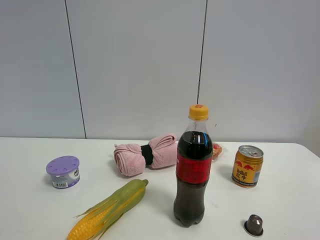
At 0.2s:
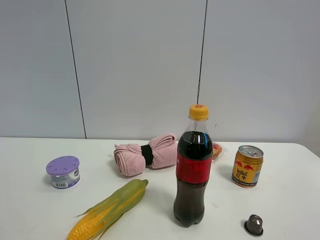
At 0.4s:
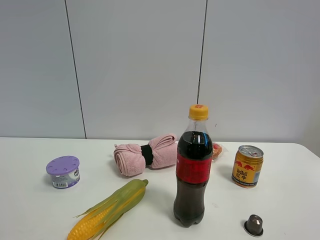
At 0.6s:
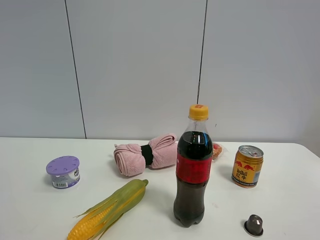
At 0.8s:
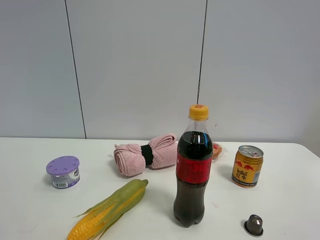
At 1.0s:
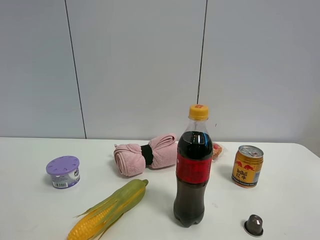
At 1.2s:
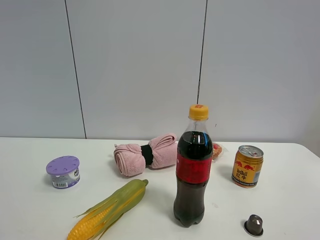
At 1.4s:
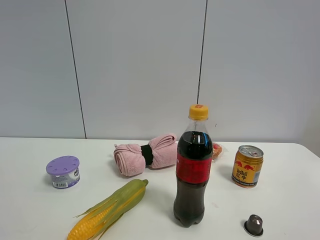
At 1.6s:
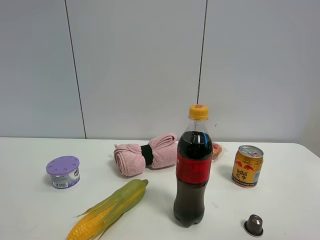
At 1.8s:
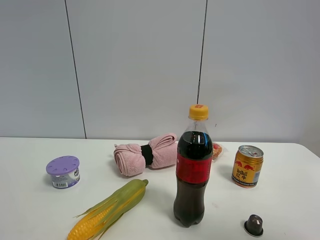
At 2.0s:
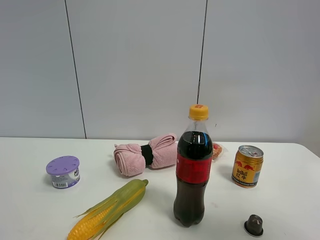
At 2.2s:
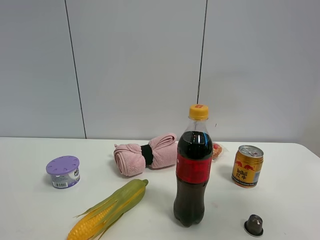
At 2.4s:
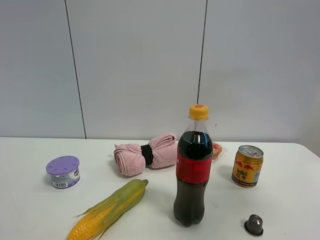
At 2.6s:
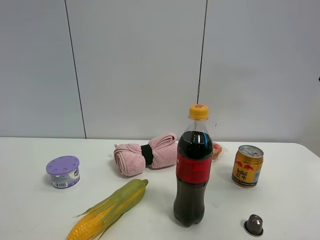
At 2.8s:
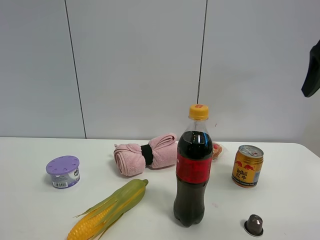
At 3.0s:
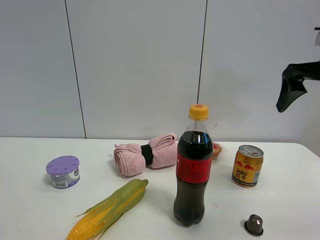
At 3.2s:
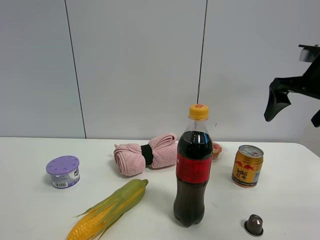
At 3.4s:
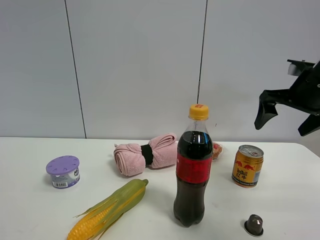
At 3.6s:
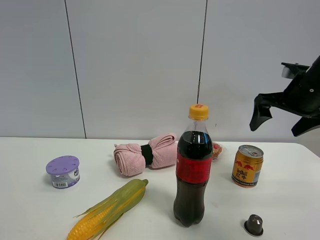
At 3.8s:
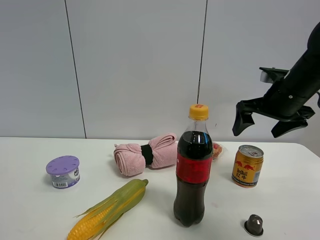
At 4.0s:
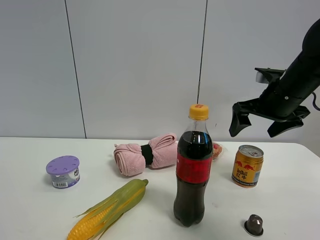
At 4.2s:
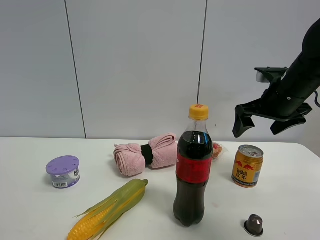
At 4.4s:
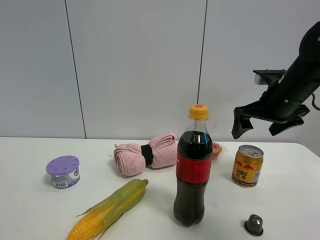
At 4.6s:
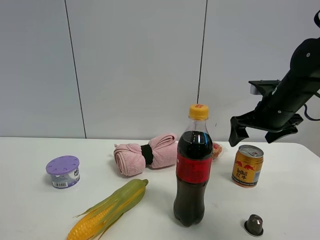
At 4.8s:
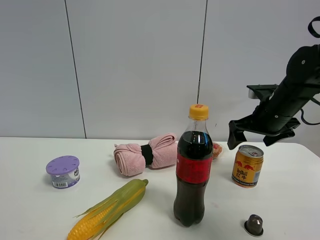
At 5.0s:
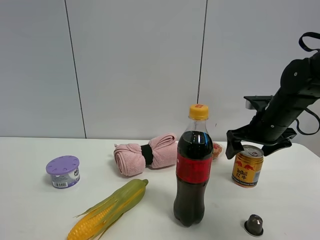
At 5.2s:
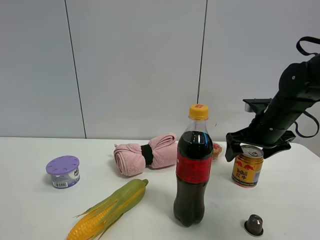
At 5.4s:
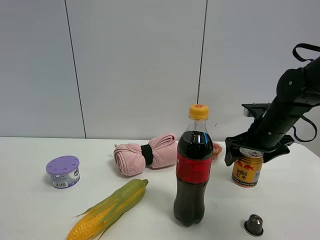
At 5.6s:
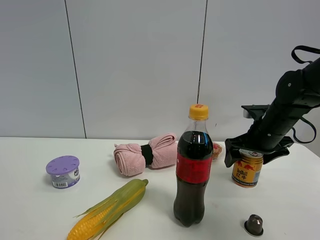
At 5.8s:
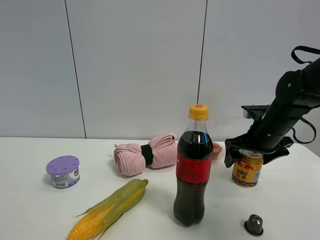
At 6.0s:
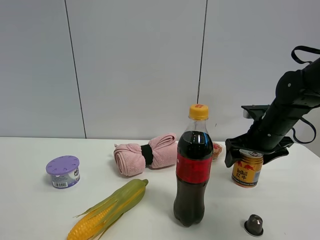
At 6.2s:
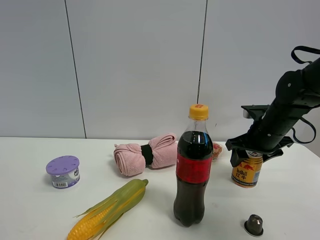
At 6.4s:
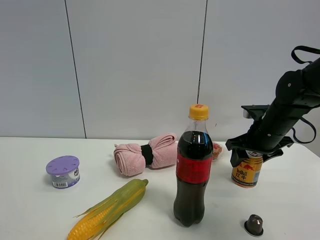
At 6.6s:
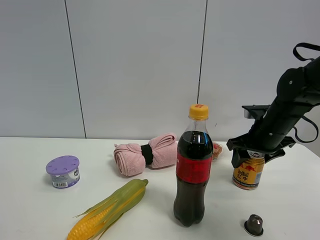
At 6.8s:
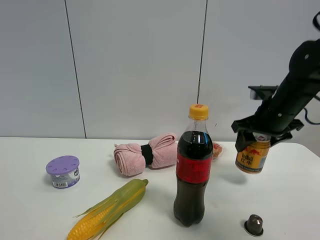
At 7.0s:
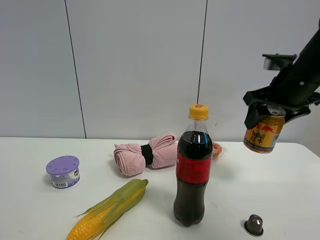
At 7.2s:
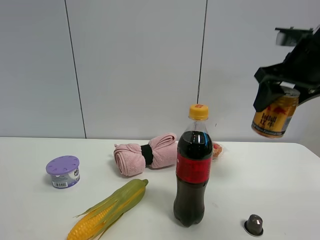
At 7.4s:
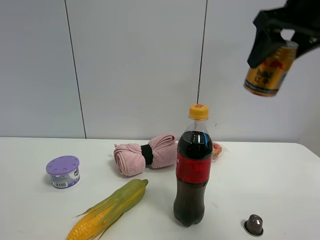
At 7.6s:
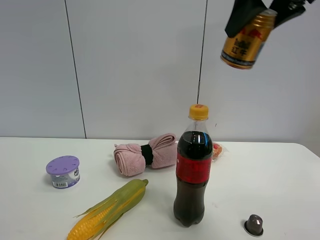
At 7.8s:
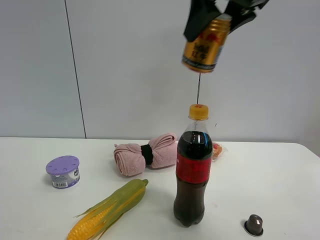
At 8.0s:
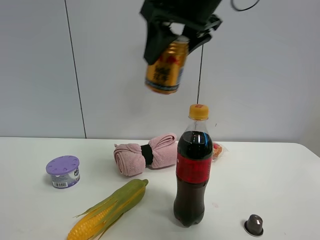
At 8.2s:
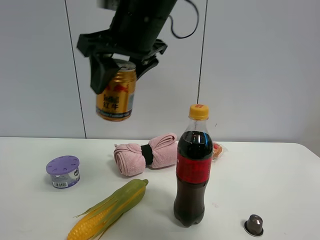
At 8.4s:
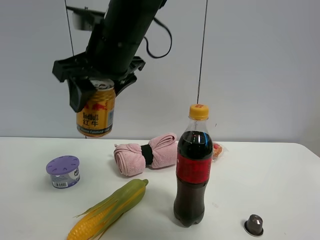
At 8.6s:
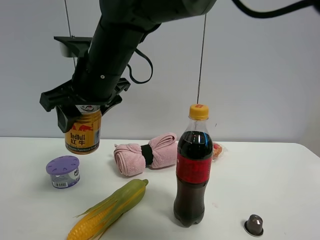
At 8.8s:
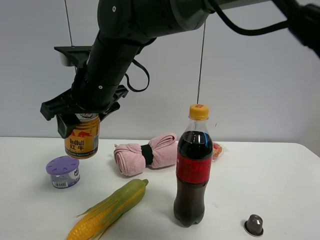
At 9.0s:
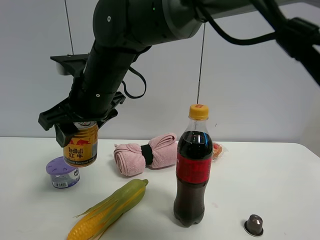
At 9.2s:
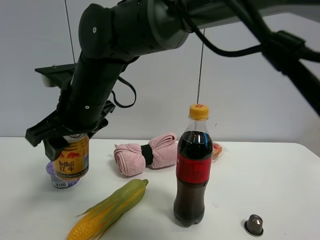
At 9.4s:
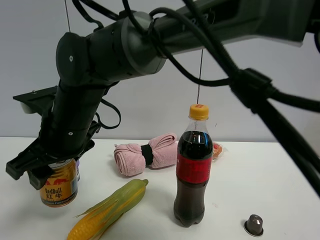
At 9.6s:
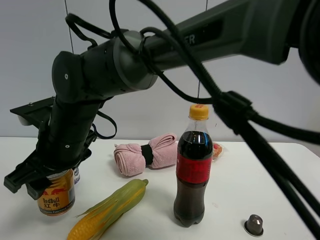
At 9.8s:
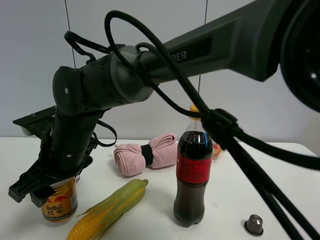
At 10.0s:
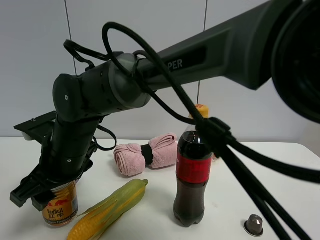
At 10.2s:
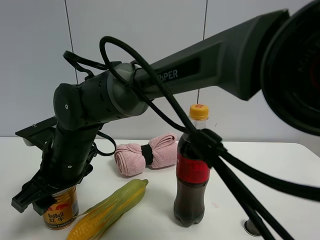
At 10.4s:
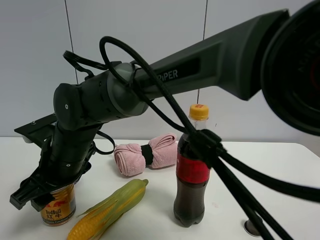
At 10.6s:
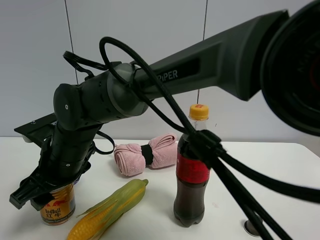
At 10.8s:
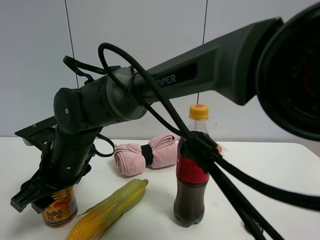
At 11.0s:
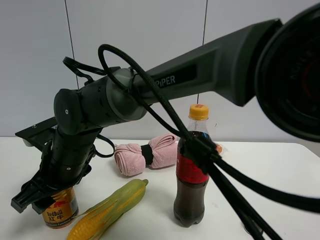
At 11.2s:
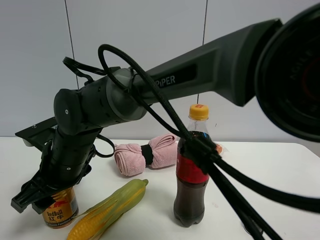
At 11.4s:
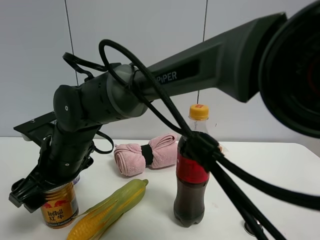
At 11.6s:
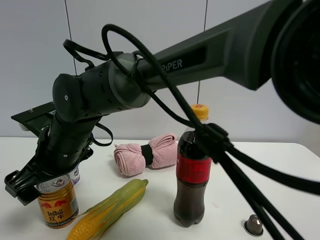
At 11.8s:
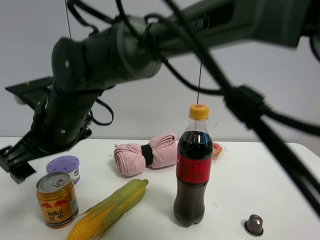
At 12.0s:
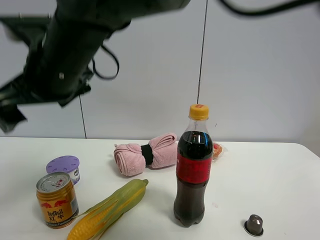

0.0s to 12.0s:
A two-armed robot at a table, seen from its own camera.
Task of the whole recording: the gripper move the object.
Step, 0.0s to 6.2s: Grasp the red bull with the right gripper.
Step, 6.4s to 11.6s: Place the red bull on the table with the right gripper.
1.6s to 3.0s: The right gripper shifts about 30 cm forward.
3.0s to 4.4s: The right gripper goes about 10 cm downward and forward.
4.4s to 6.0s: The right gripper heads downward, covering roughly 5 cm.
6.0s to 7.6s: The right gripper goes about 30 cm upward, and closes up.
7.6s to 9.0s: The right gripper heads to the left and downward, covering approximately 35 cm.
9.0s to 10.4s: The right gripper goes roughly 10 cm downward.
10.4s to 12.0s: The right gripper moves upward, about 15 cm, and opens up.

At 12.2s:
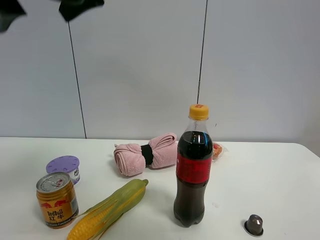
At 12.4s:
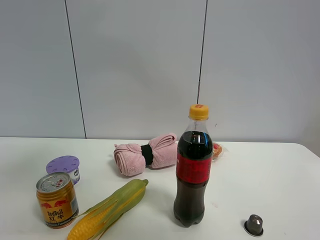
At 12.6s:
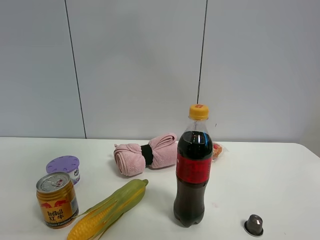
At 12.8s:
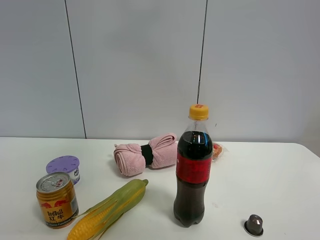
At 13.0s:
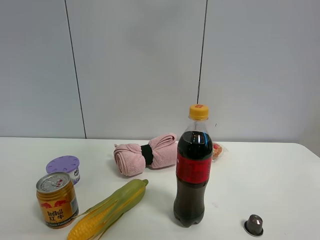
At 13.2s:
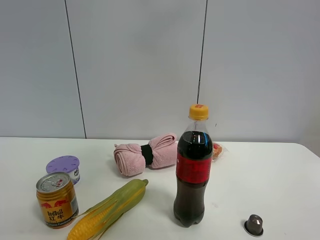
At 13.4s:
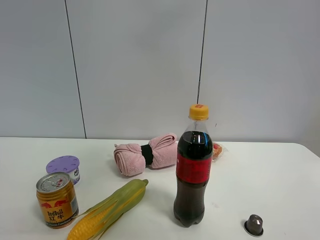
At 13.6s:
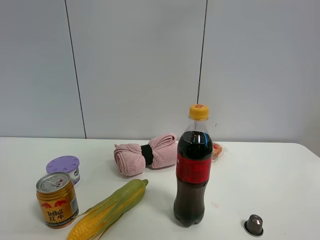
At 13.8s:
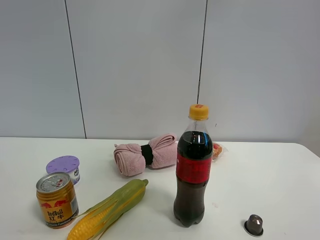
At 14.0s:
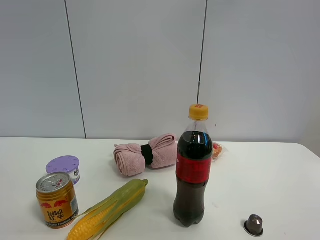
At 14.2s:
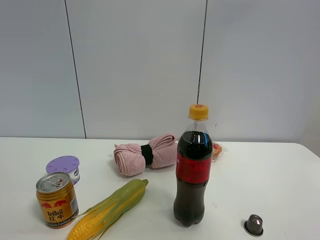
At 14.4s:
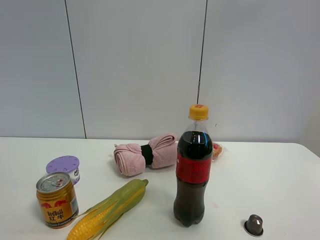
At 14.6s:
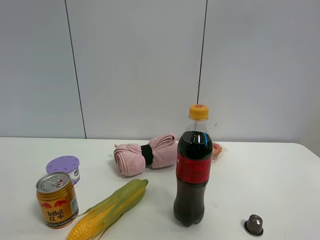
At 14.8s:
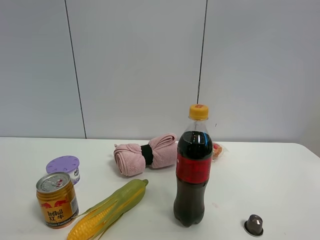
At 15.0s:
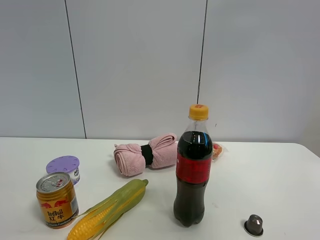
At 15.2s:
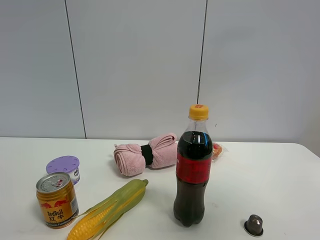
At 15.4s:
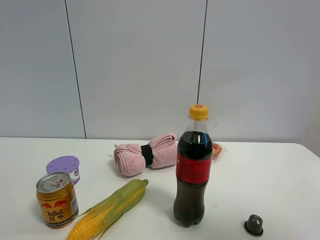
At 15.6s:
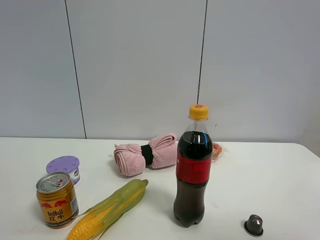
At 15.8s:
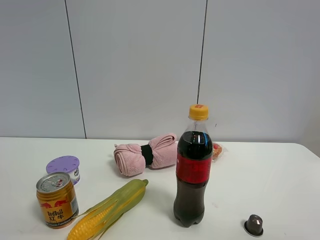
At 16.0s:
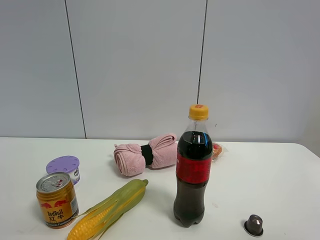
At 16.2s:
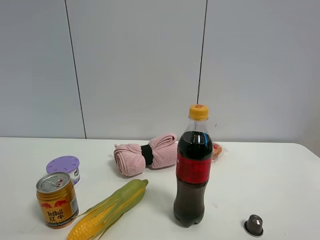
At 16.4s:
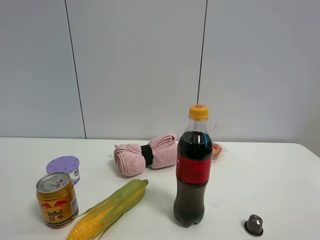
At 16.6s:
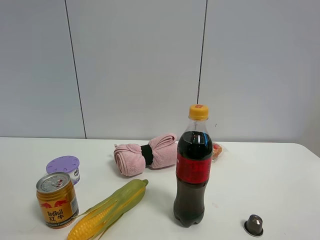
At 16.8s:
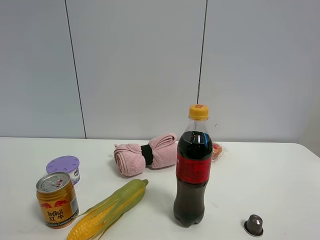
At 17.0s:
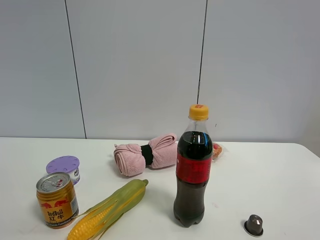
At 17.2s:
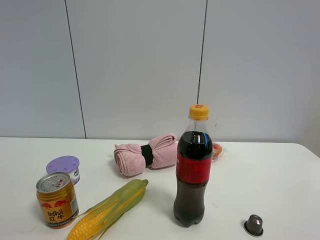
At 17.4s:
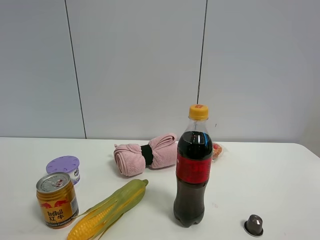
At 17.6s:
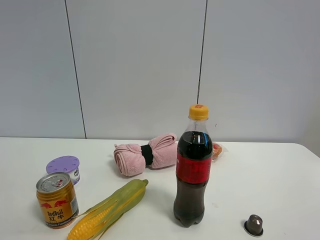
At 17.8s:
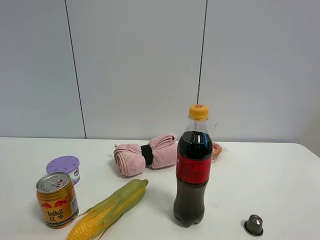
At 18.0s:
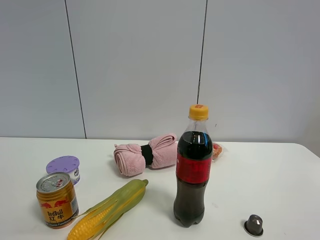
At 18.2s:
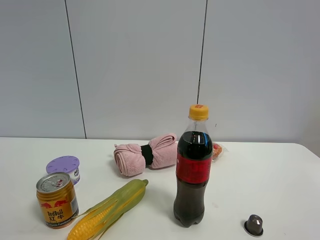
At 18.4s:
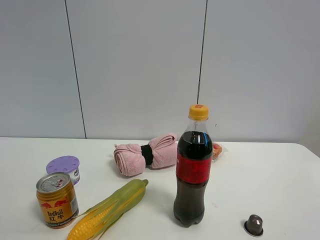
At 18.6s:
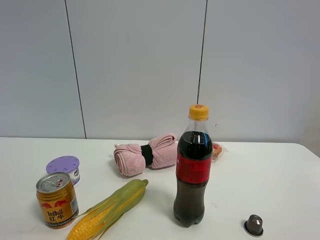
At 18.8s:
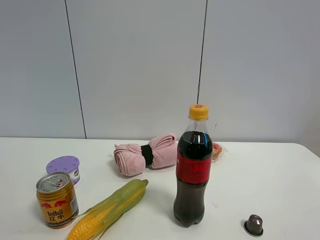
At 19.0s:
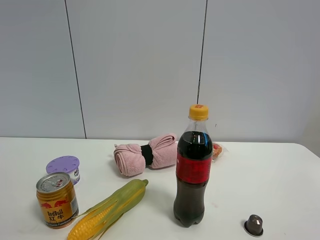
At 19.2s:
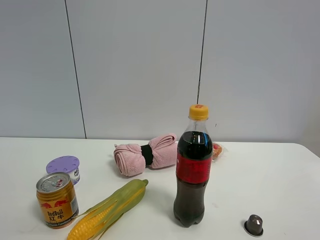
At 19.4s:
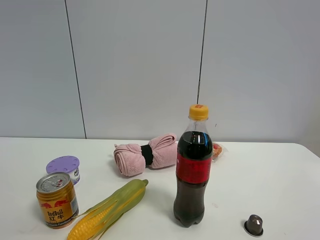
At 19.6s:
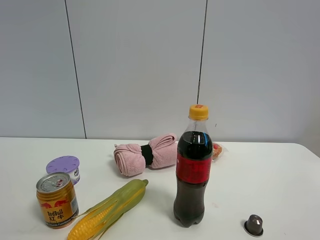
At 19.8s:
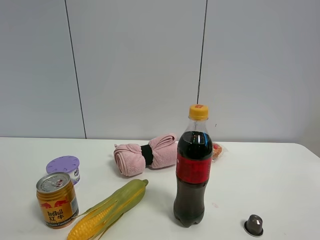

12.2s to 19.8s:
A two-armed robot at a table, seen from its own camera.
Task of the whole recording: the gripper move the object.
12.2s to 13.8s: The right gripper goes roughly 30 cm to the right and upward.
13.8s to 15.2s: The right gripper travels backward, to the right and downward by roughly 20 cm.
15.2s to 16.8s: The right gripper heads downward, covering about 20 cm.
16.8s to 18.2s: Both grippers stay put.

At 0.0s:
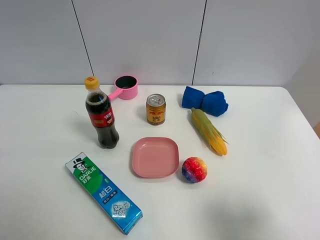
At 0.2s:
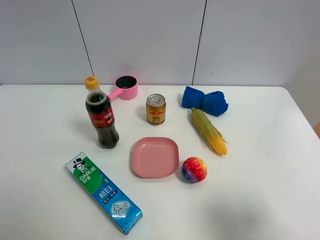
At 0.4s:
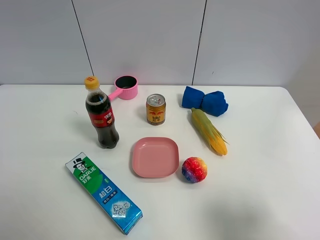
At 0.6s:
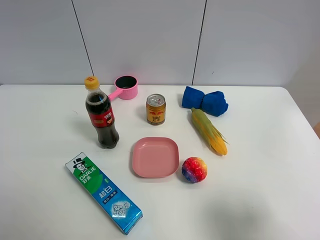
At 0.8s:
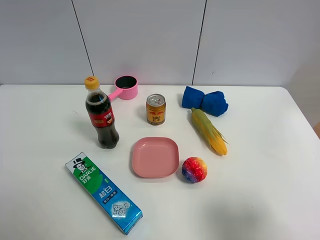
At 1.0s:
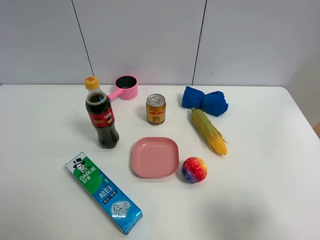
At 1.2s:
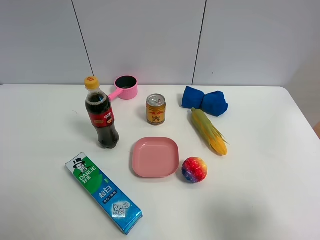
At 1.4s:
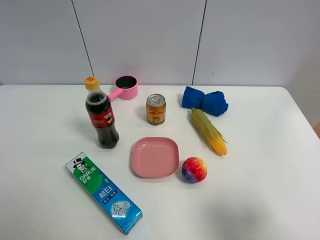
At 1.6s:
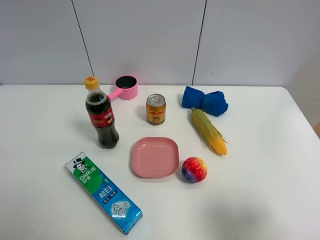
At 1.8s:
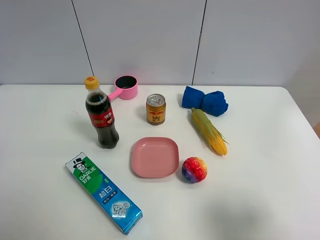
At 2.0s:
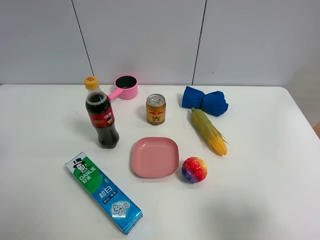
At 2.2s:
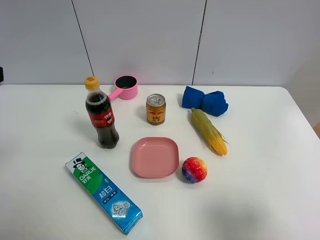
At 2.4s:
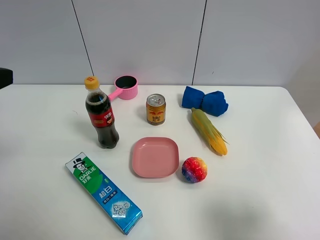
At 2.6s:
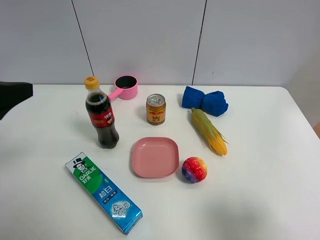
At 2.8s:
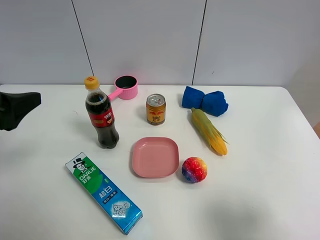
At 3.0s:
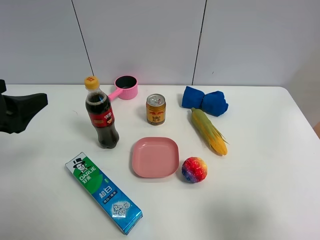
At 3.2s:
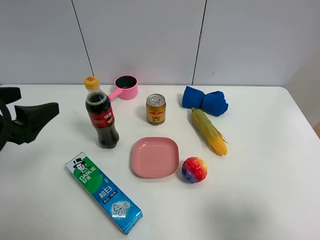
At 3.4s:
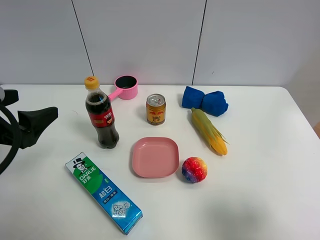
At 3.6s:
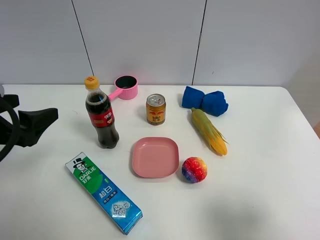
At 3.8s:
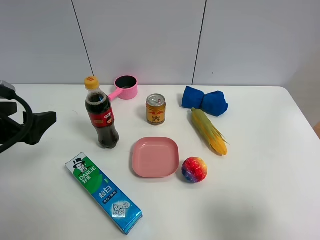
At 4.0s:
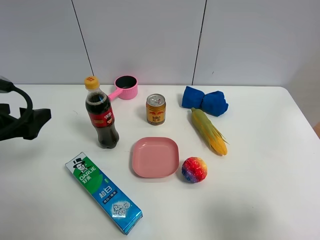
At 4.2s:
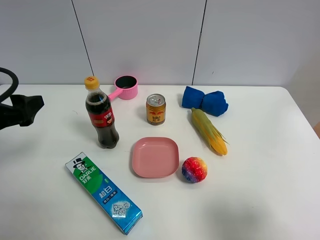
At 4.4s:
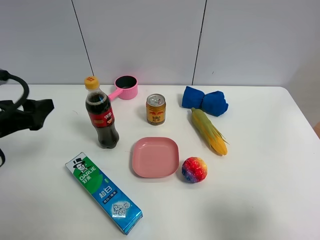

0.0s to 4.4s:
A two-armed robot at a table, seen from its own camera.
Task of the whole recording: the gripper move the object.
1.4s to 3.0s: The left gripper goes some 15 cm forward.
3.0s to 4.4s: The grippers make only small movements.
